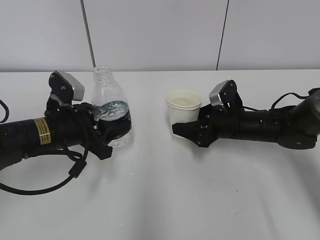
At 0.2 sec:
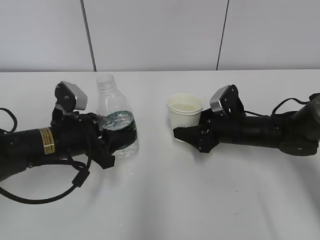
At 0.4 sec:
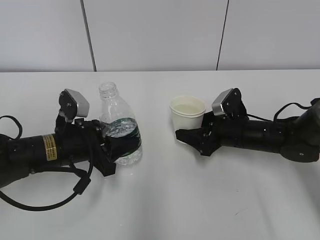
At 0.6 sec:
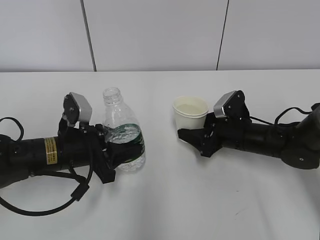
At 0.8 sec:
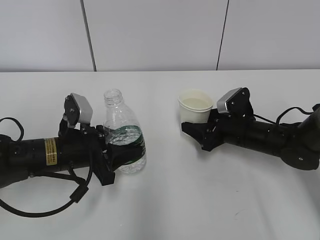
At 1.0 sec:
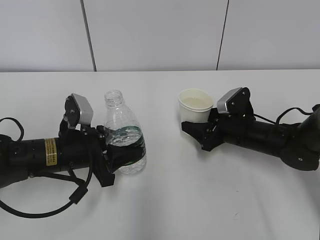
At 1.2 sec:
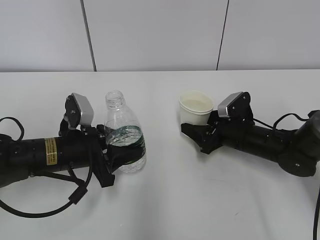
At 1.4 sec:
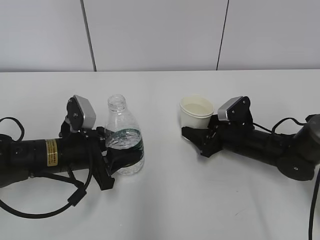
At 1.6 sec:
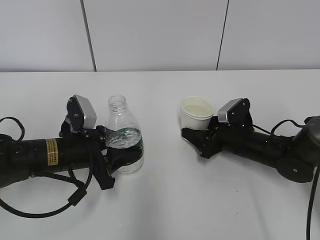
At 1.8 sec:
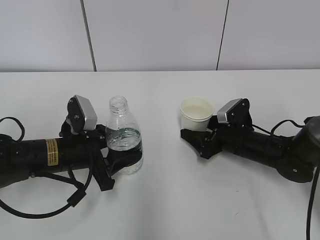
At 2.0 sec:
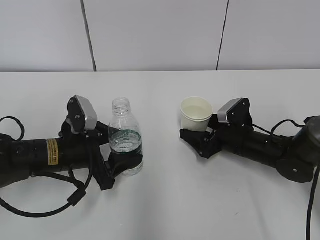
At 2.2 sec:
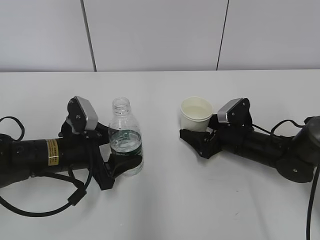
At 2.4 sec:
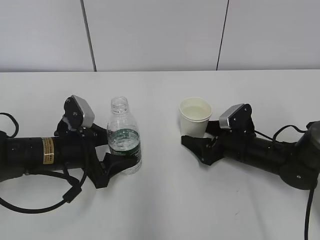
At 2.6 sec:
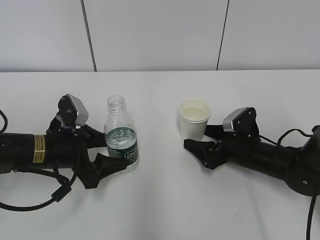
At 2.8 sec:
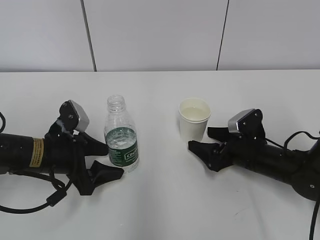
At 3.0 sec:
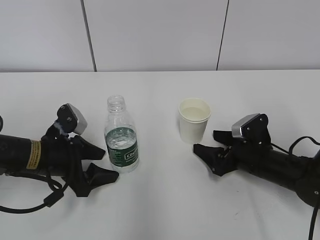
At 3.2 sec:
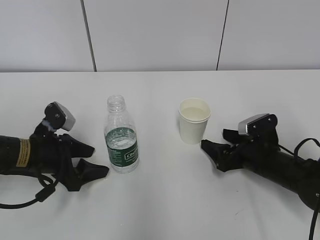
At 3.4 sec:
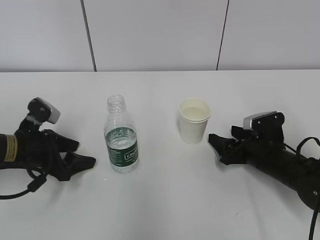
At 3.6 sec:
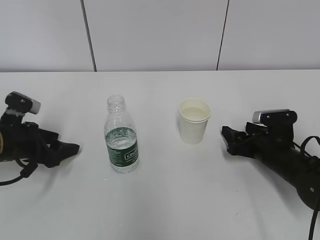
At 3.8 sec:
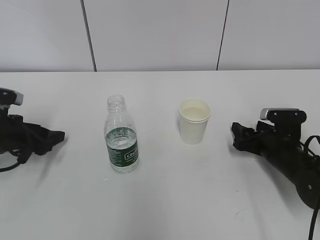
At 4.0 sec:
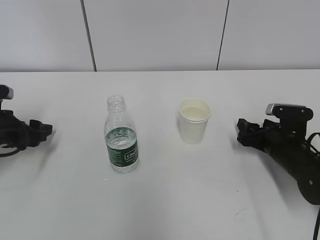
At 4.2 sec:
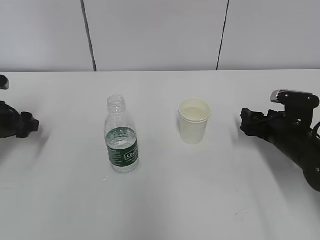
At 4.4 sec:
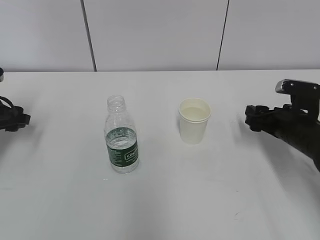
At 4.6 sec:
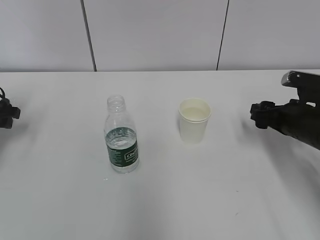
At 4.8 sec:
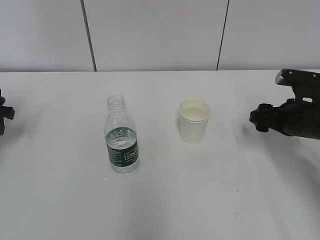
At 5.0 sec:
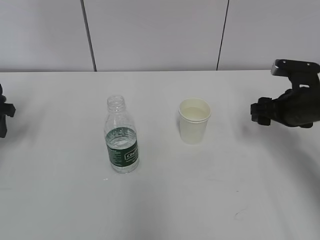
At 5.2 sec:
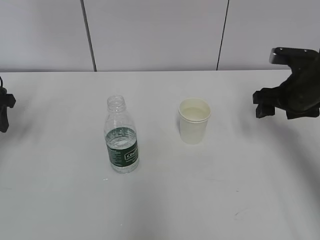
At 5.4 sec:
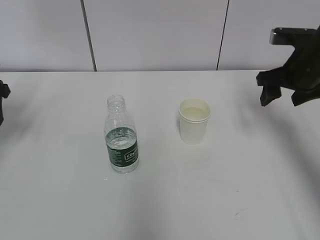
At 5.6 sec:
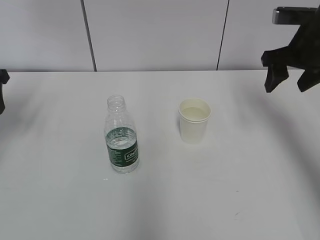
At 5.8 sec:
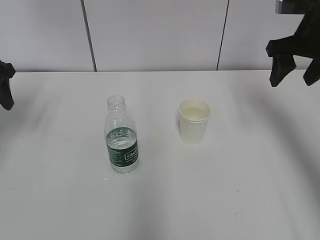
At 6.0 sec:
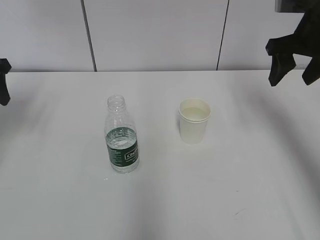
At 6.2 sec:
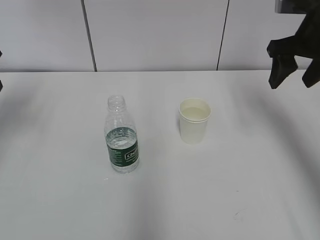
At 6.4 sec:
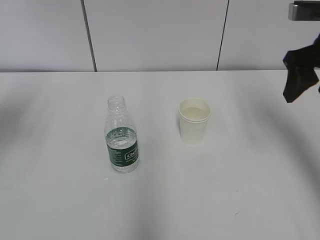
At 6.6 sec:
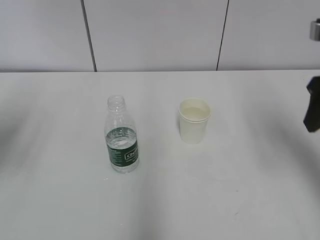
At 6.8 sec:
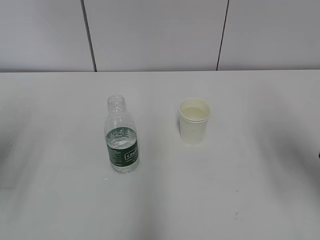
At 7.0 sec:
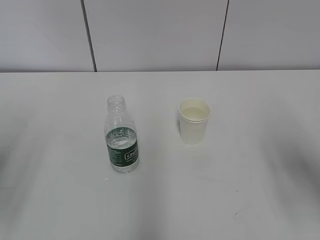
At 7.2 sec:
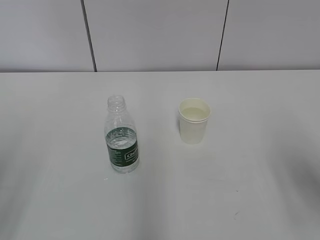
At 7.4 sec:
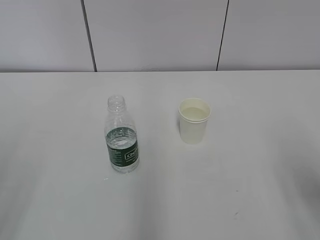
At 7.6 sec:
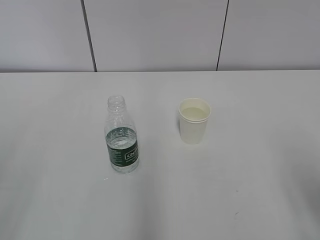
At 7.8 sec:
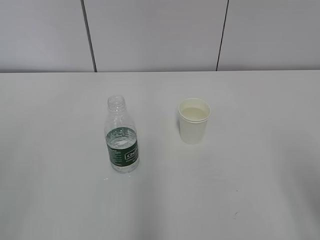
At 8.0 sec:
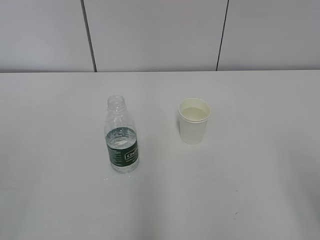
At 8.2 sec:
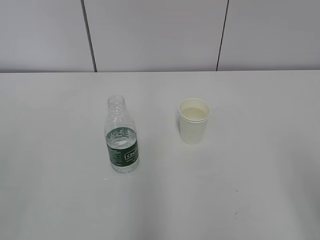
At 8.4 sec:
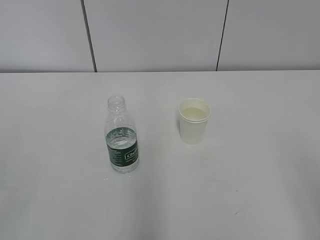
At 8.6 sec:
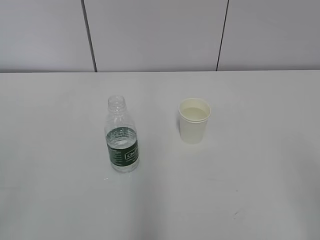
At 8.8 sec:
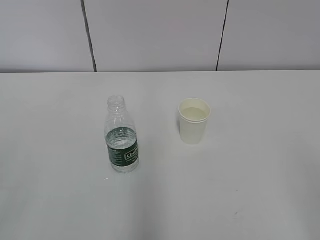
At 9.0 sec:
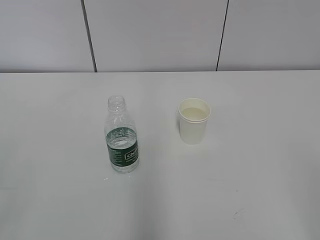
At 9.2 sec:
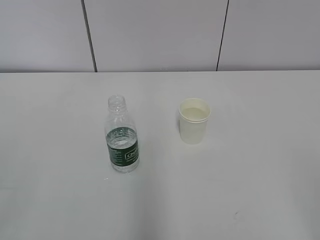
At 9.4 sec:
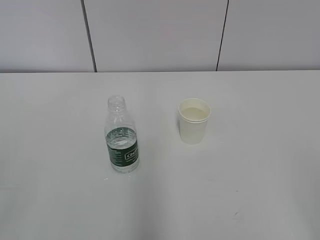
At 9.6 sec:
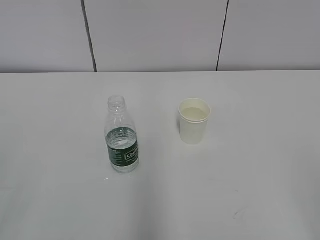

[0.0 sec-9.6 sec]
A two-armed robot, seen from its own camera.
1.6 sec to 3.2 sec: The right gripper shifts approximately 5 cm backward, and opens up. Meanwhile the left gripper is displaced to the left by about 5 cm, and opens its fingers.
3.2 sec to 4.8 sec: The right gripper shifts roughly 10 cm upward. Meanwhile the left gripper is displaced to the left, upward and forward by approximately 20 cm.
4.8 sec to 6.4 sec: The right gripper shifts roughly 15 cm upward.
6.4 sec to 8.0 sec: Both grippers travel together backward, about 25 cm.

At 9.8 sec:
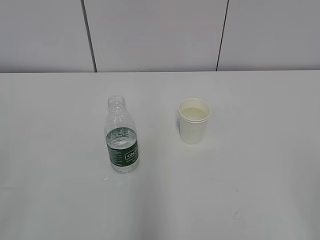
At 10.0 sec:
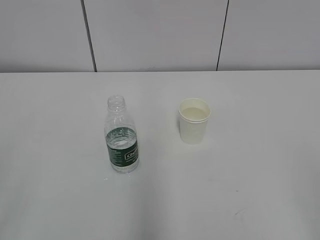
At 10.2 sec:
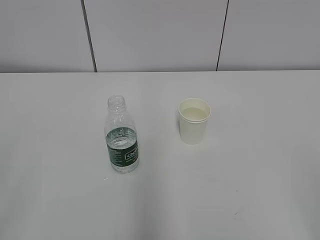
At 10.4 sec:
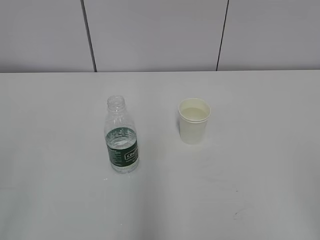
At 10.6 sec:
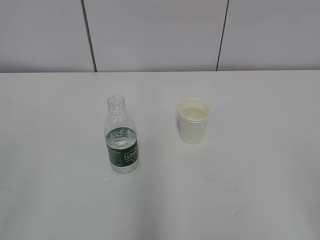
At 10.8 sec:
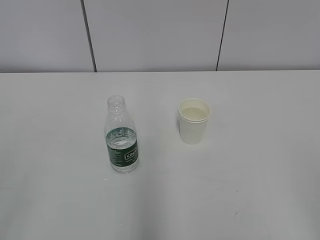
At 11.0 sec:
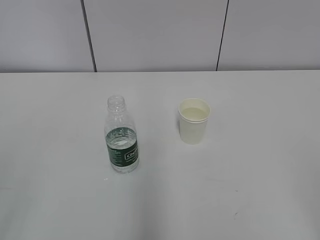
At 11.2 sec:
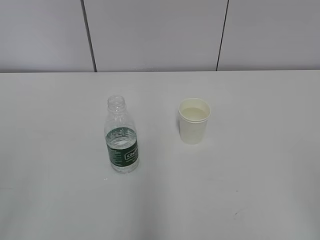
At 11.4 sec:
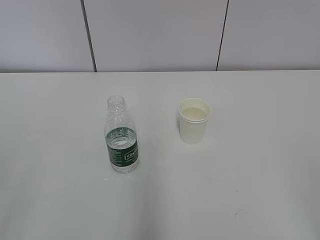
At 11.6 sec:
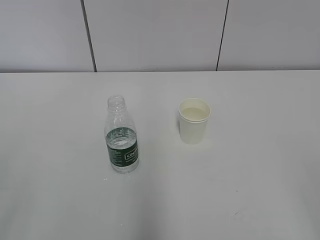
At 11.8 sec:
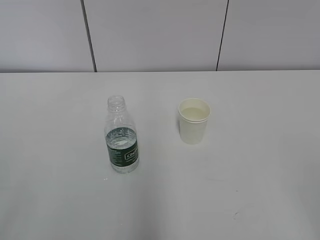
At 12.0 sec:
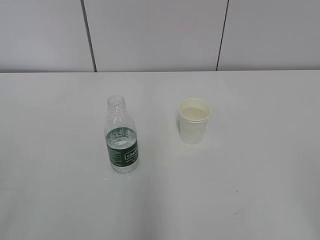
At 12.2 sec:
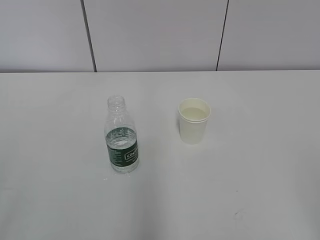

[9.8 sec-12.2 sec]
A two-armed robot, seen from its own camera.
9.8 sec to 12.2 sec: Both grippers stay put.
